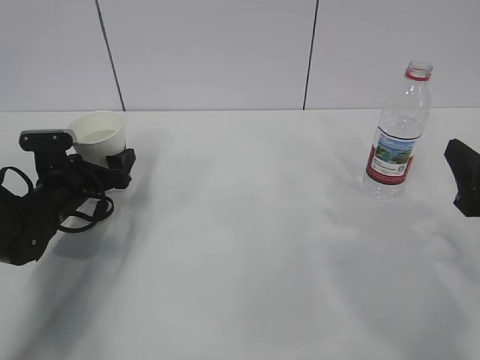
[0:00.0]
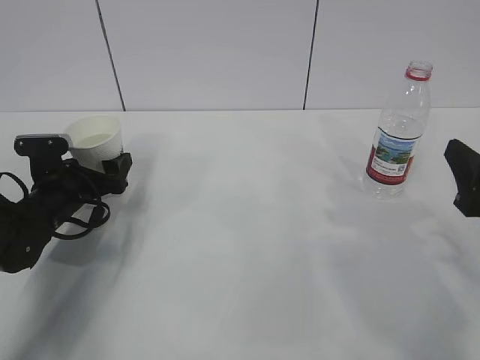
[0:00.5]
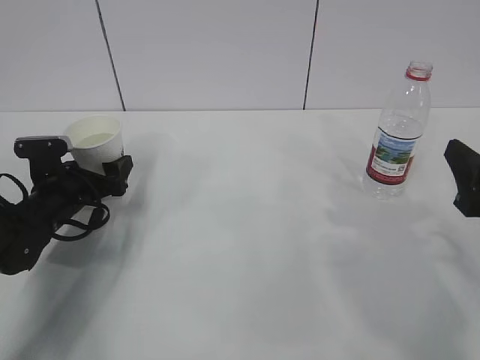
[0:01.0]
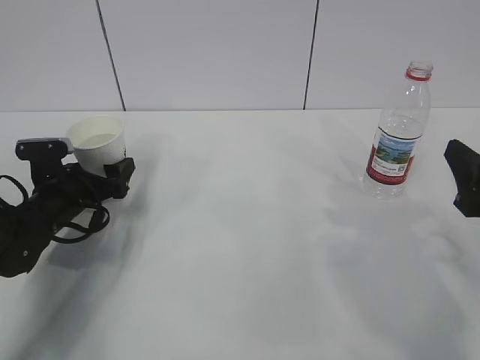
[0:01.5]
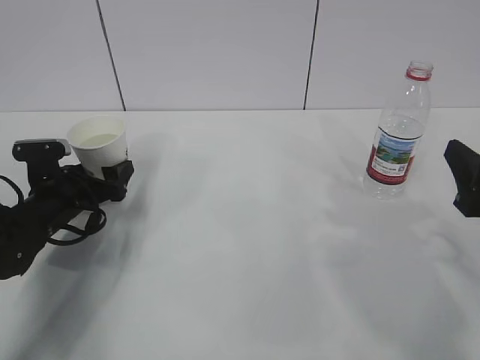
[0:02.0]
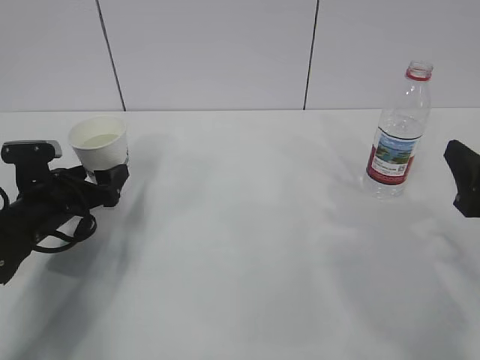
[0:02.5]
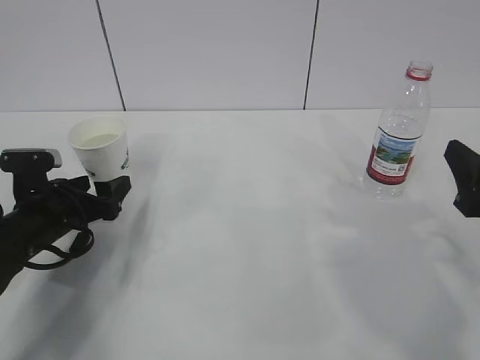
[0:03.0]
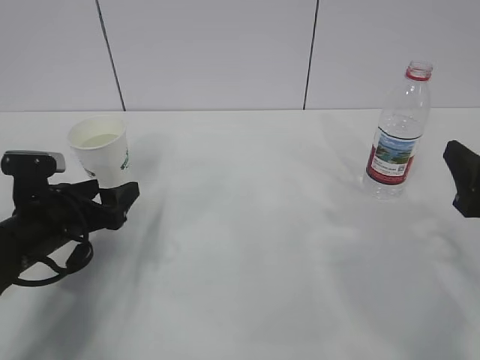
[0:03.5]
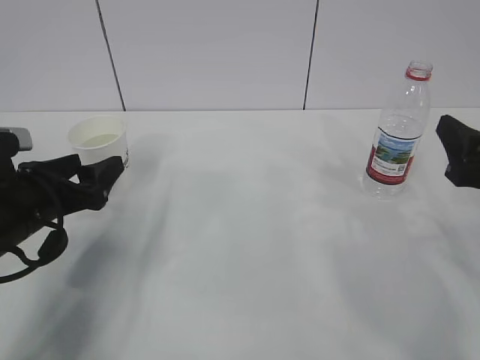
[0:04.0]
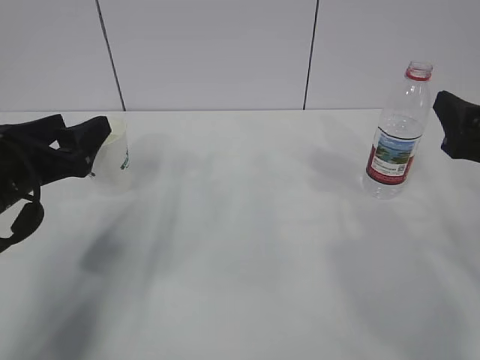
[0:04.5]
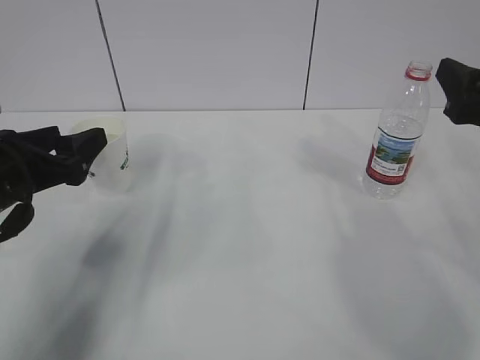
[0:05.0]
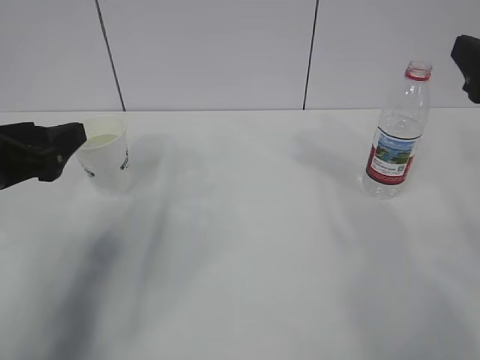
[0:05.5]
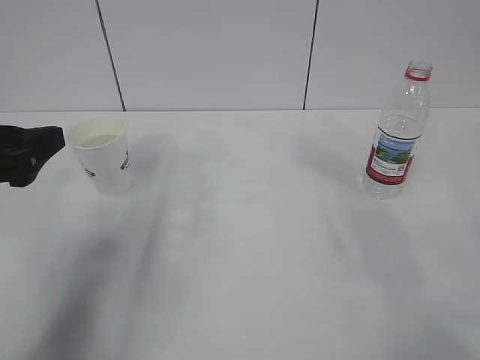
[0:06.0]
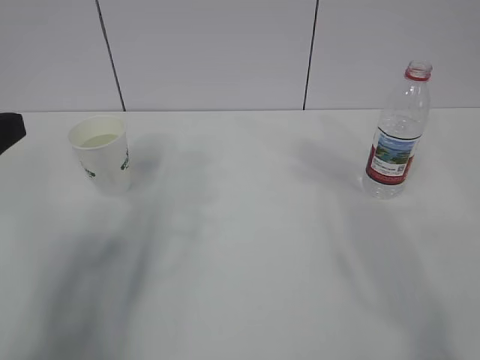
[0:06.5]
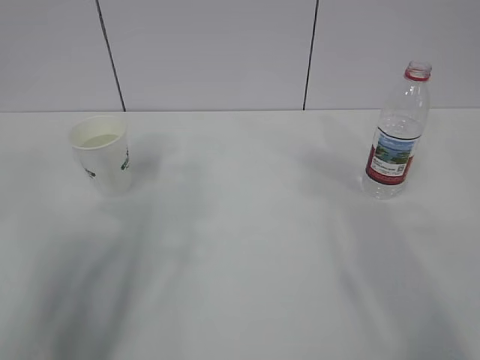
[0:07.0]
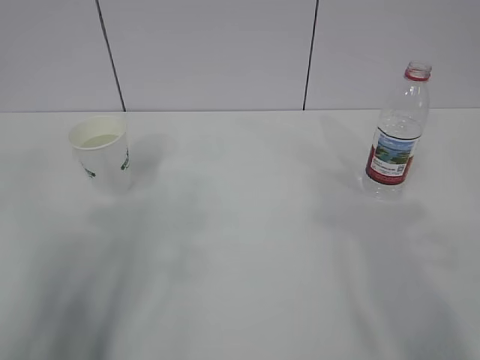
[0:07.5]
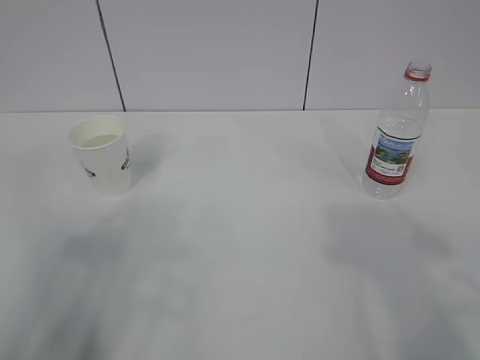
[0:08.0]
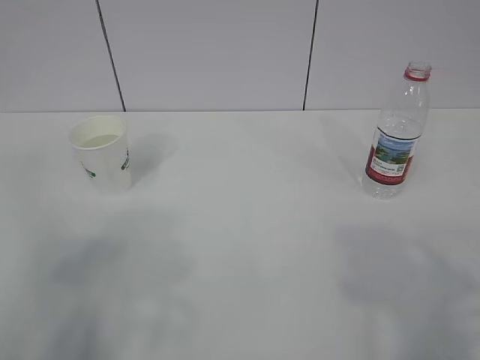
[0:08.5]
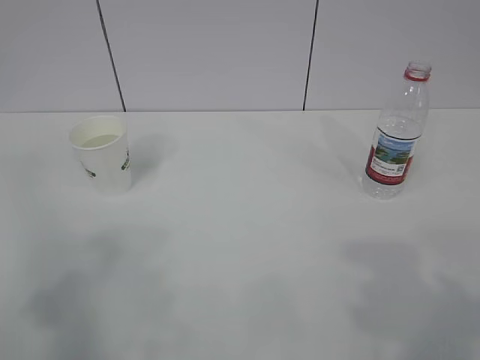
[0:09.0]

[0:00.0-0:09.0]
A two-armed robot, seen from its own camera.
0:00.0 to 0:02.0: The grippers make only small movements.
0:02.0 to 0:04.5: The left gripper shifts some 15 cm upward and backward. Meanwhile the right gripper ends up roughly 5 cm from where it was.
0:04.5 to 0:07.0: The right gripper goes approximately 15 cm upward and backward. Meanwhile the left gripper goes approximately 15 cm backward and upward.
0:07.0 to 0:09.0: The left gripper travels backward by about 15 cm.

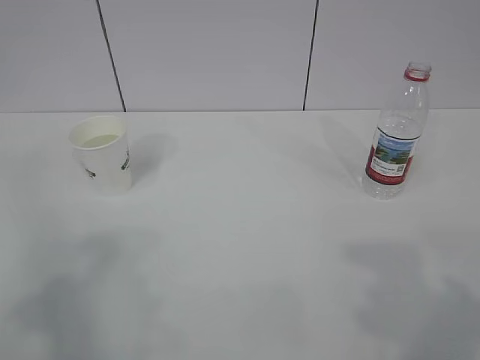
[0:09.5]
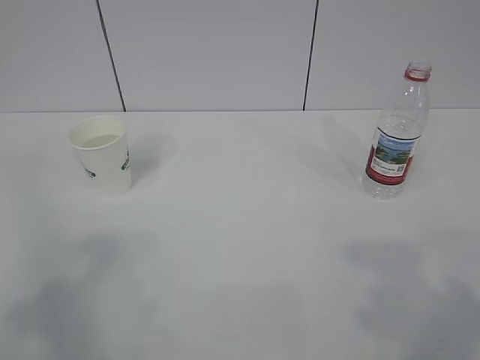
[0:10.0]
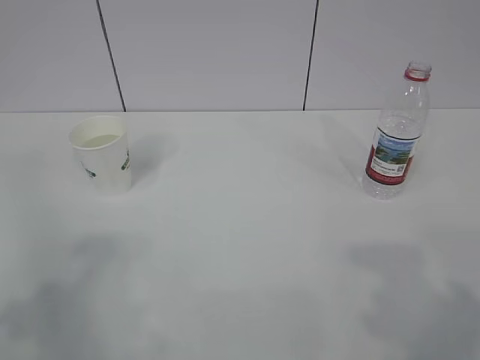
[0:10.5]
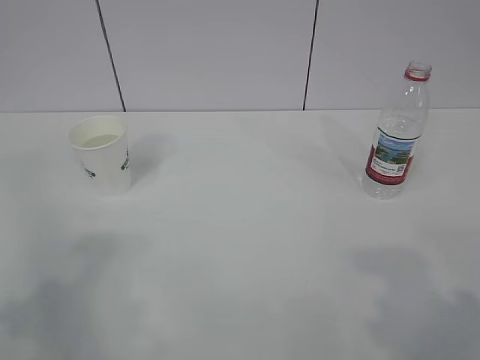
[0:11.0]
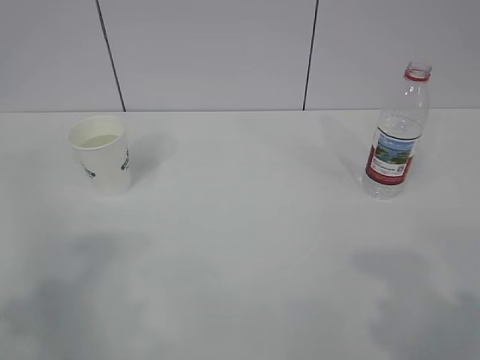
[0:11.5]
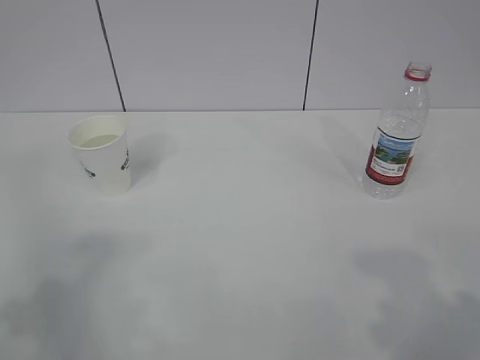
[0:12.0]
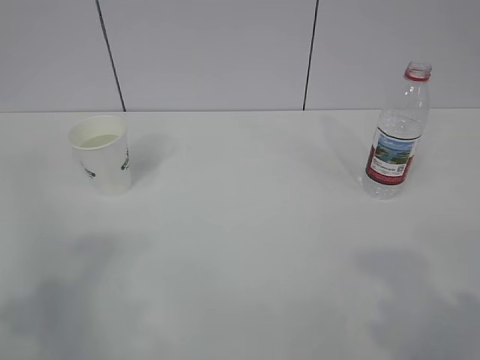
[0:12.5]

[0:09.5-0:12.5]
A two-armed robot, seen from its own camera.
0:11.0 to 0:12.5: The two grippers keep their place.
